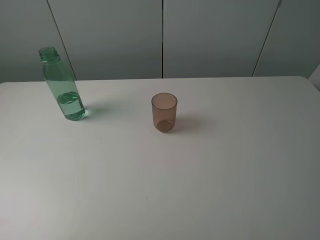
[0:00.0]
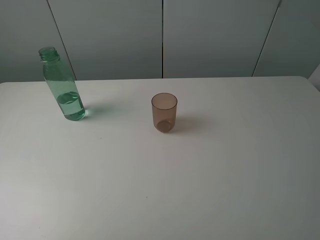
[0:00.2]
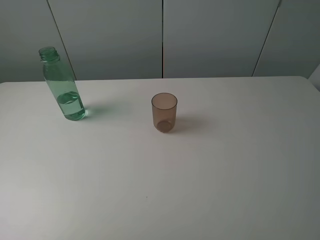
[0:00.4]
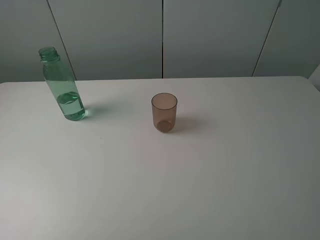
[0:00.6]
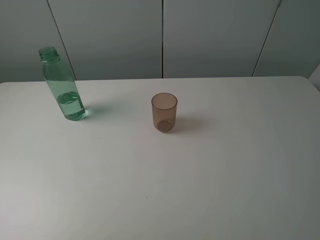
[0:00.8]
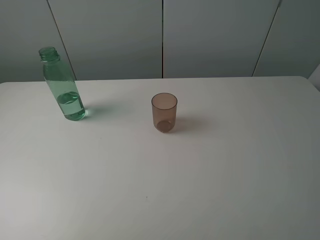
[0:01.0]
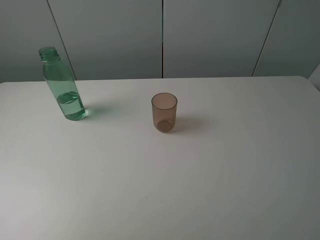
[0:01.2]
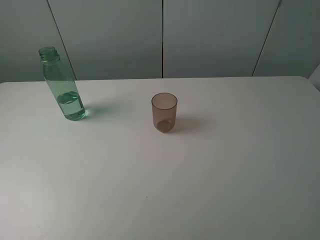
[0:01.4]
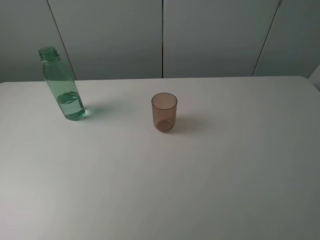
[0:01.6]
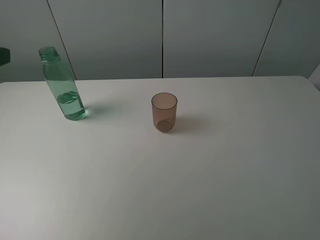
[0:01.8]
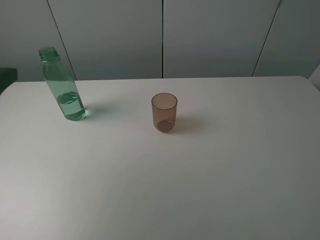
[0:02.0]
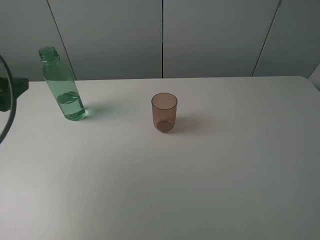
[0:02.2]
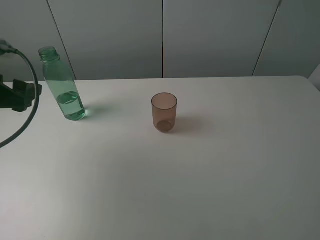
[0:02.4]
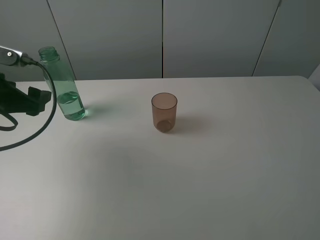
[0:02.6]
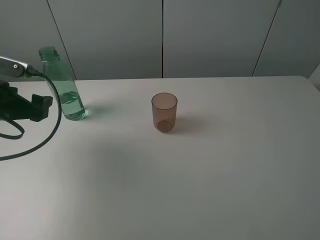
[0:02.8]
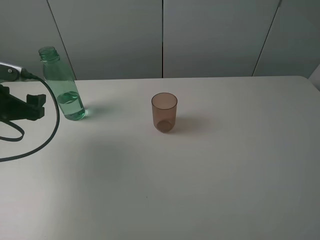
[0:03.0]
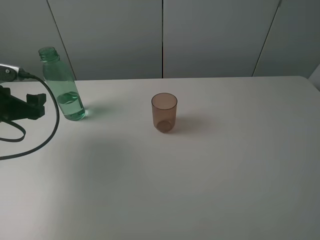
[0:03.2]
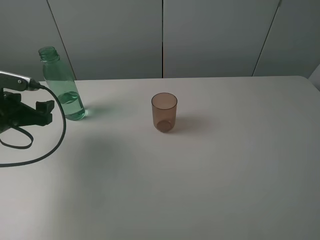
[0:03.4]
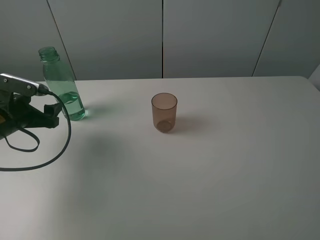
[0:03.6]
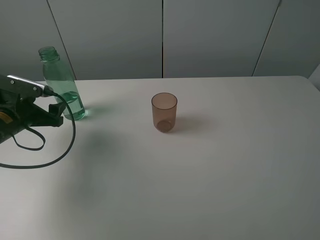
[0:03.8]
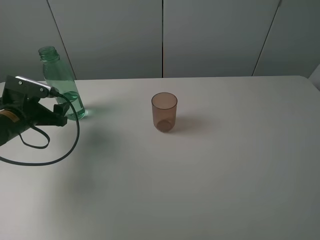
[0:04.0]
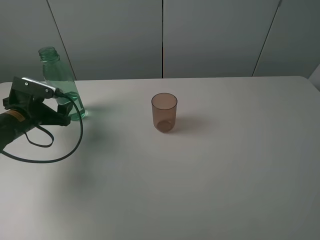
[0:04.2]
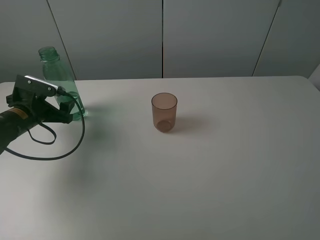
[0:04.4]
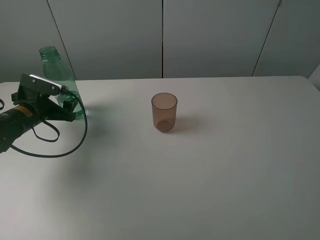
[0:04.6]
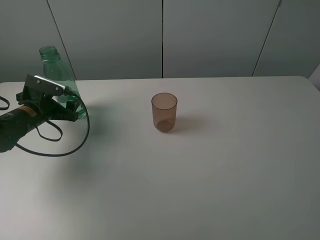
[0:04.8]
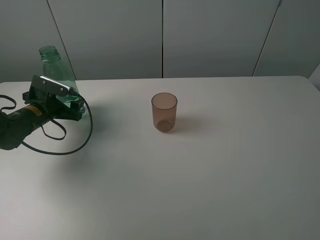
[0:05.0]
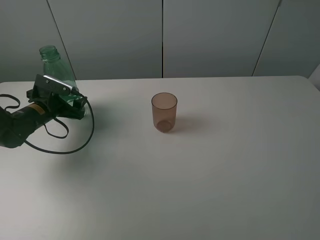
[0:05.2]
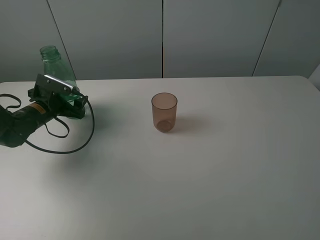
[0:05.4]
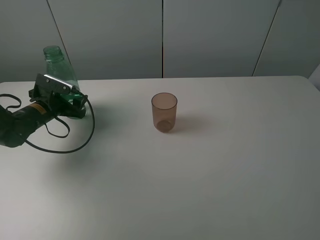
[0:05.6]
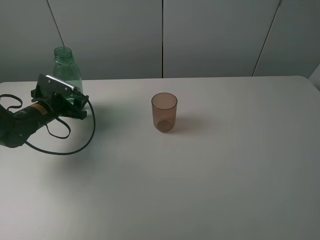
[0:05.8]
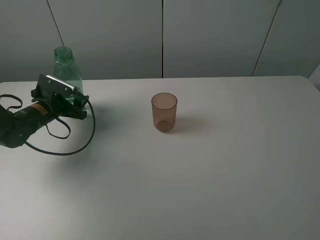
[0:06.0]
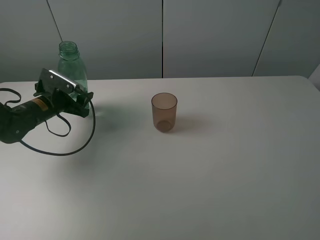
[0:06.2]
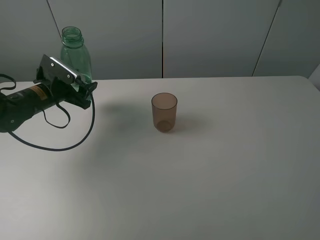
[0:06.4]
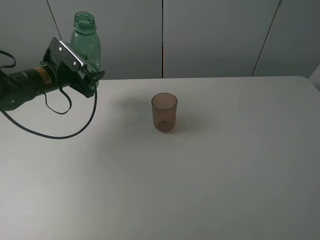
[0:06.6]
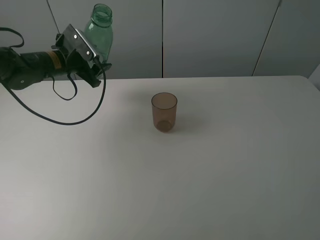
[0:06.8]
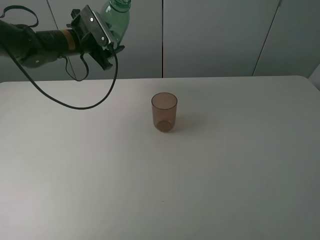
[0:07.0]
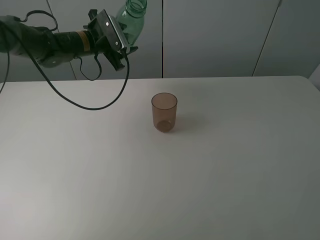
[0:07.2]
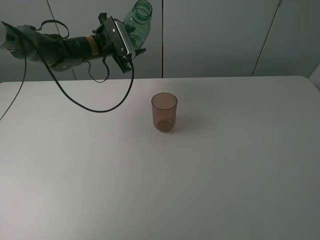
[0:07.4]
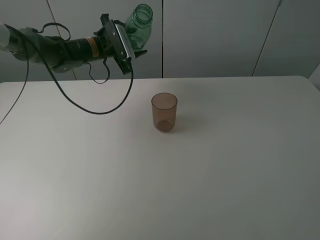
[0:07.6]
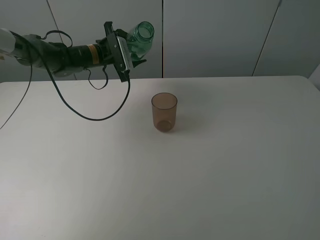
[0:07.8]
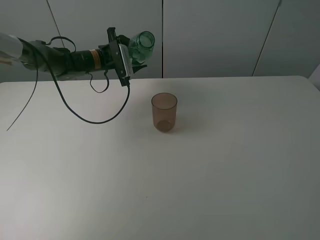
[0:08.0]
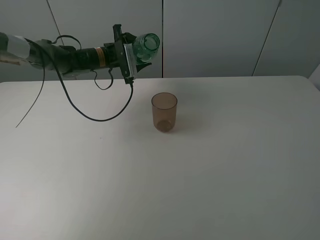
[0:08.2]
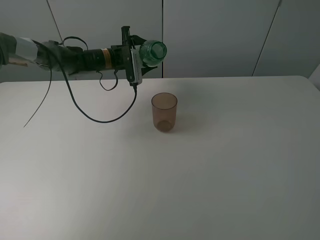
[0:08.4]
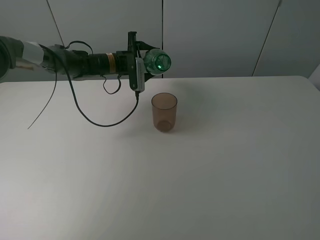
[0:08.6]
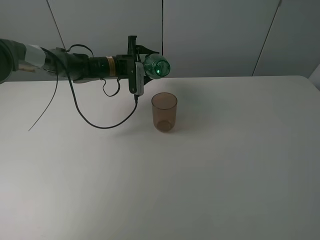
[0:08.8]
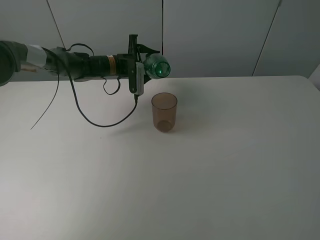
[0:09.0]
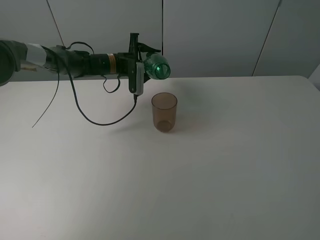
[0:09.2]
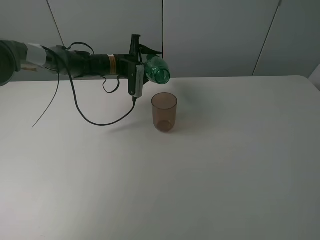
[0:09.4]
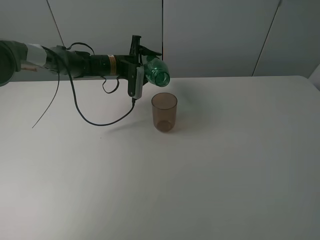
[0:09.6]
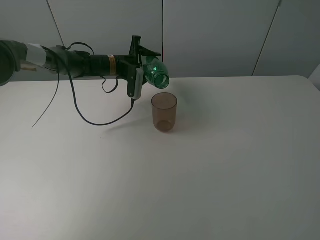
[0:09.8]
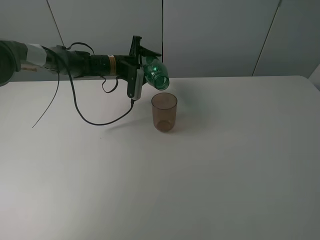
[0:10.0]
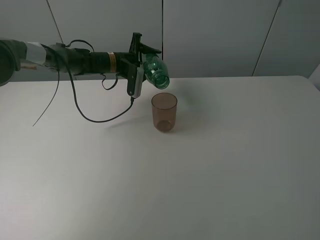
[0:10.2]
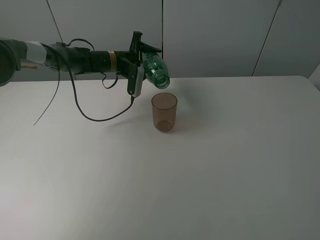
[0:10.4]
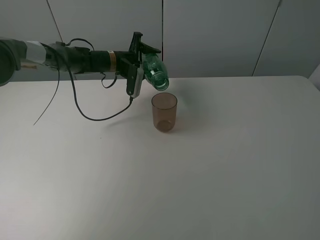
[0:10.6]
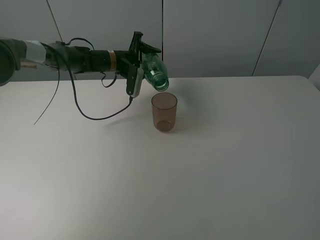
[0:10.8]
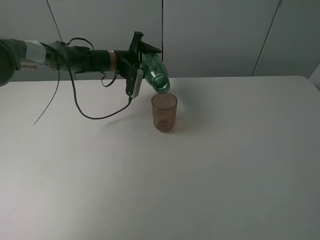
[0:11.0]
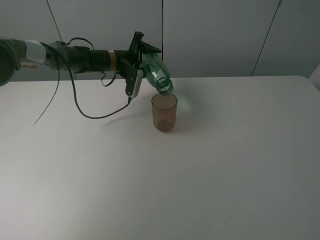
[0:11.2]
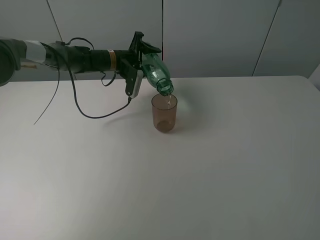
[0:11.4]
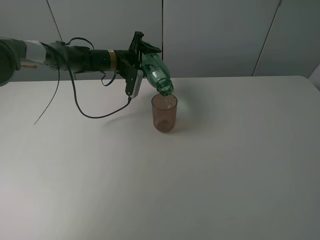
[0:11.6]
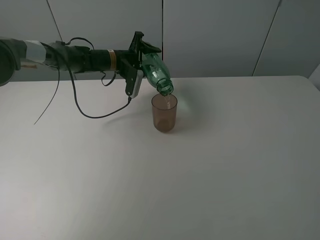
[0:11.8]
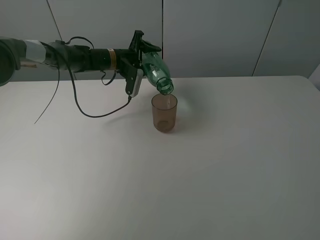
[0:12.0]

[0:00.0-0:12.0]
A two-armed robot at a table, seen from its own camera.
Task of the whole recording: pick up the bottle filled with water and pour it into the pink cup.
Step, 0:00.0 to 0:06.0: Grasp the green bottle with the left gripper.
0:01.6 to 0:03.0: The left gripper heads downward and forward, covering about 20 cm.
0:03.0 to 0:04.4: The left gripper is displaced downward and forward by approximately 10 cm.
0:04.4 to 0:06.0: The left gripper moves roughly 5 cm, and closes its fingers.
0:06.0 to 0:07.6: The left gripper goes roughly 20 cm to the right, forward and upward.
0:07.6 to 0:09.0: The left gripper moves downward, approximately 5 cm.
0:09.0 to 0:10.4: There are only small adjustments of the grippers.
0:10.4 to 0:12.0: There are only small adjustments of the grippers.

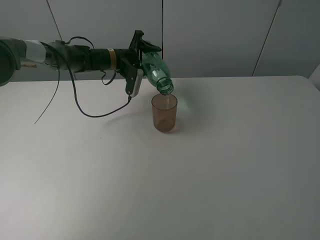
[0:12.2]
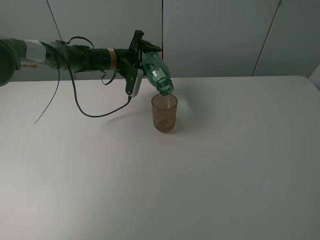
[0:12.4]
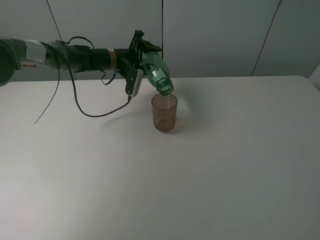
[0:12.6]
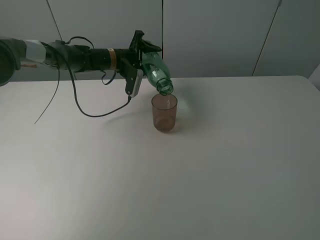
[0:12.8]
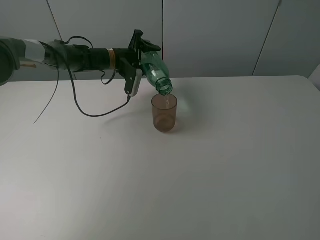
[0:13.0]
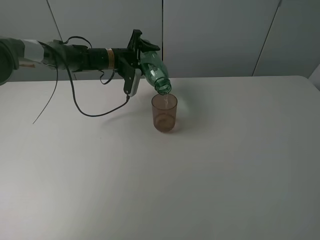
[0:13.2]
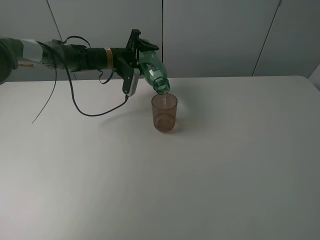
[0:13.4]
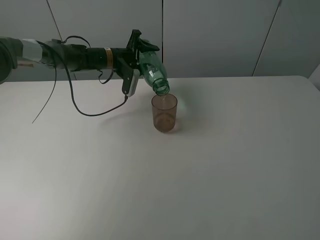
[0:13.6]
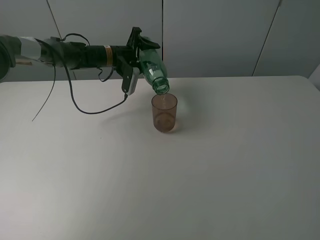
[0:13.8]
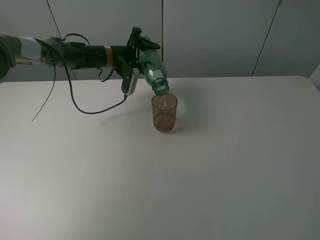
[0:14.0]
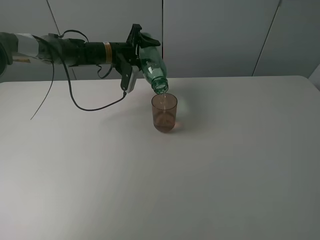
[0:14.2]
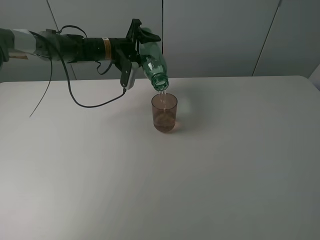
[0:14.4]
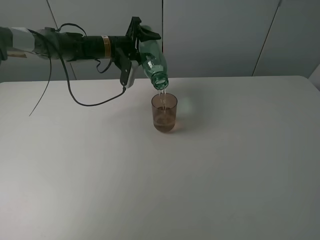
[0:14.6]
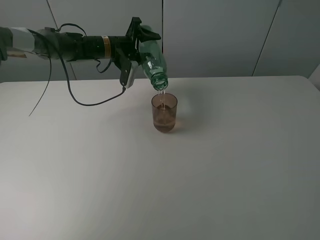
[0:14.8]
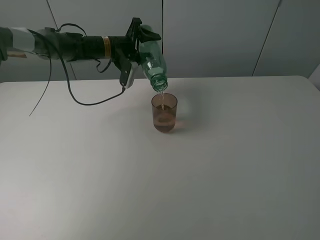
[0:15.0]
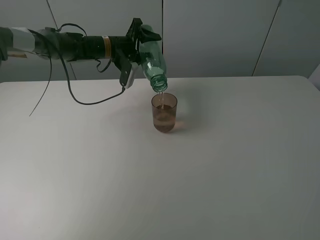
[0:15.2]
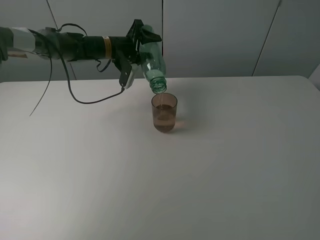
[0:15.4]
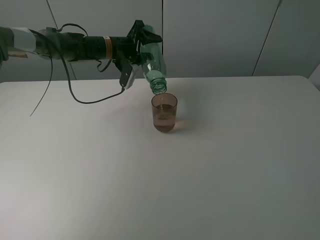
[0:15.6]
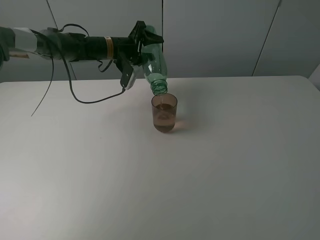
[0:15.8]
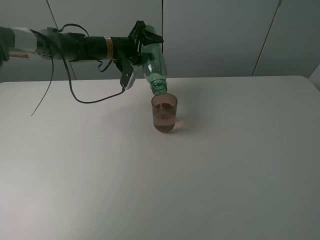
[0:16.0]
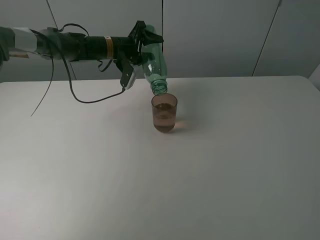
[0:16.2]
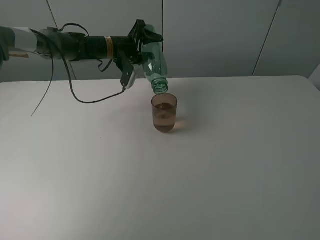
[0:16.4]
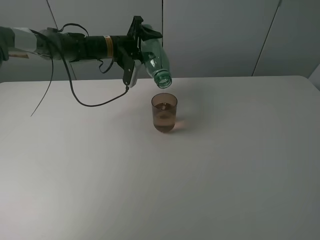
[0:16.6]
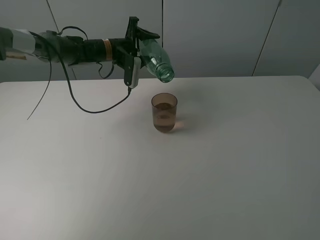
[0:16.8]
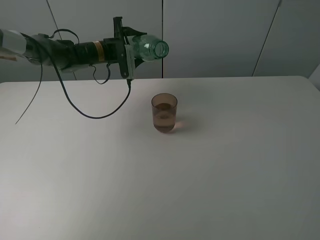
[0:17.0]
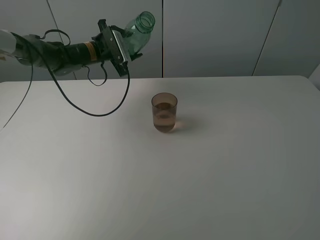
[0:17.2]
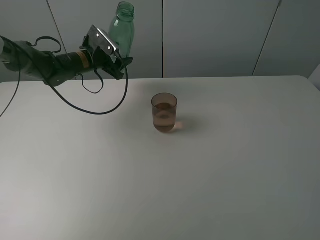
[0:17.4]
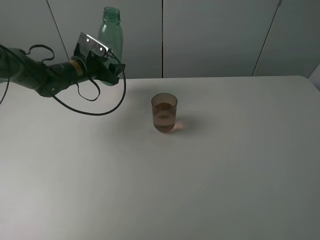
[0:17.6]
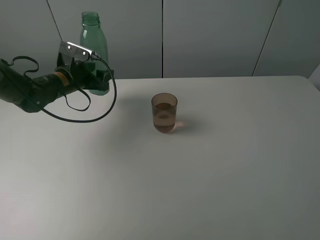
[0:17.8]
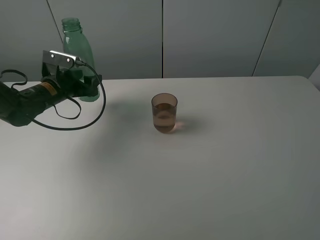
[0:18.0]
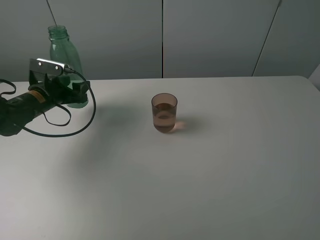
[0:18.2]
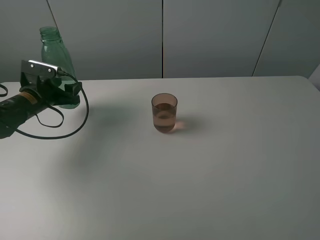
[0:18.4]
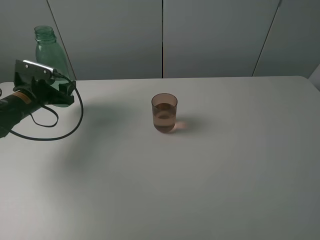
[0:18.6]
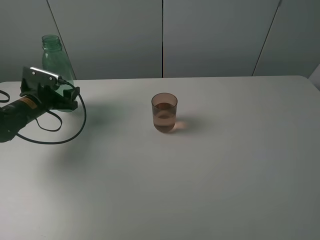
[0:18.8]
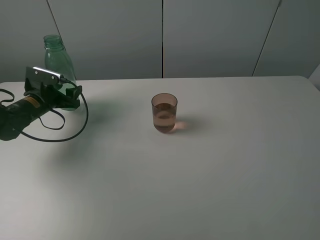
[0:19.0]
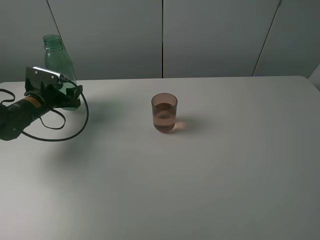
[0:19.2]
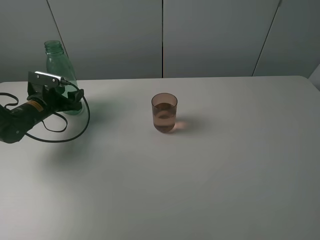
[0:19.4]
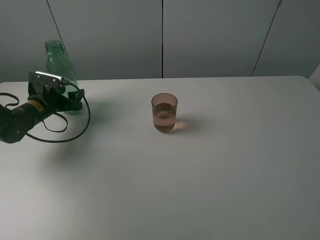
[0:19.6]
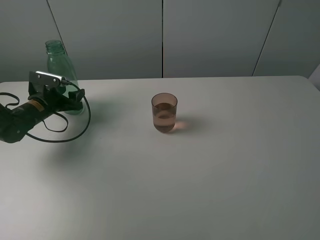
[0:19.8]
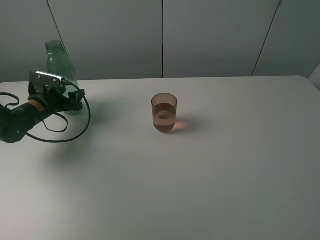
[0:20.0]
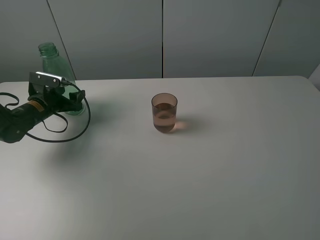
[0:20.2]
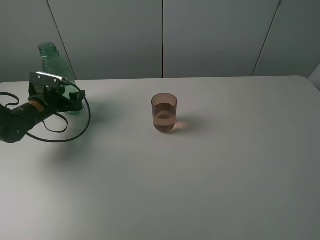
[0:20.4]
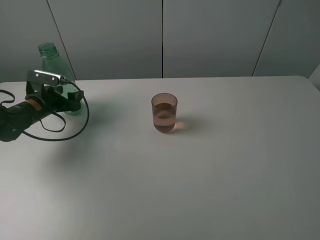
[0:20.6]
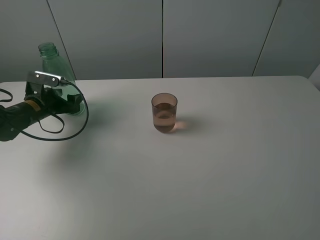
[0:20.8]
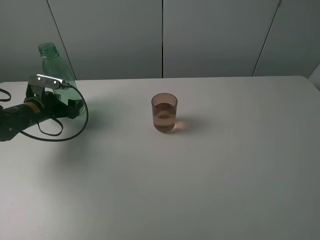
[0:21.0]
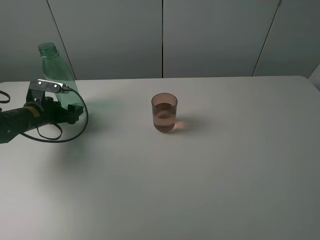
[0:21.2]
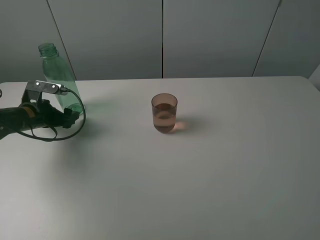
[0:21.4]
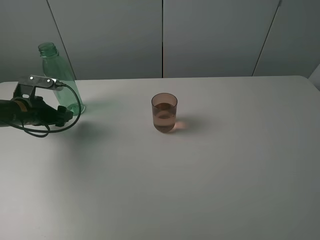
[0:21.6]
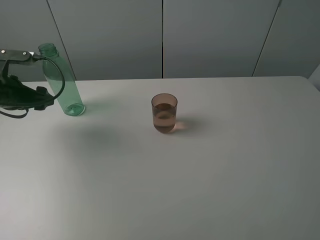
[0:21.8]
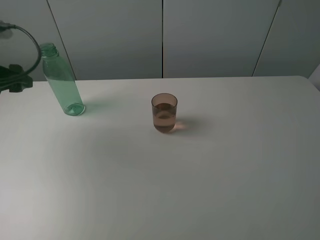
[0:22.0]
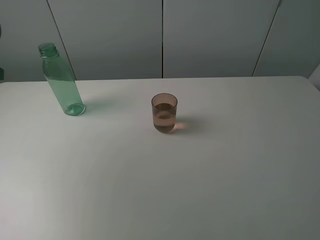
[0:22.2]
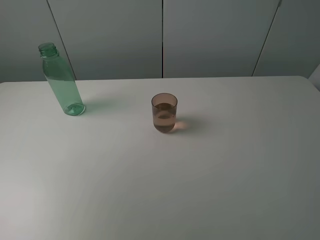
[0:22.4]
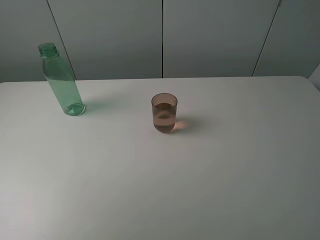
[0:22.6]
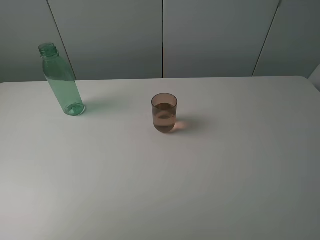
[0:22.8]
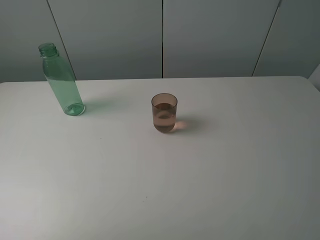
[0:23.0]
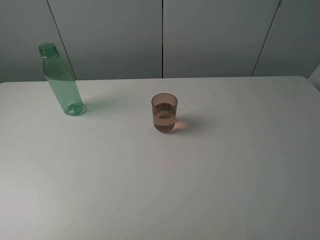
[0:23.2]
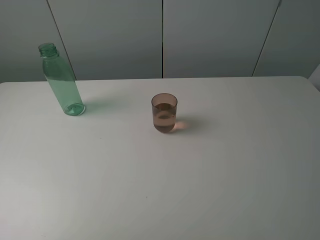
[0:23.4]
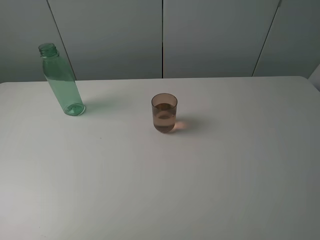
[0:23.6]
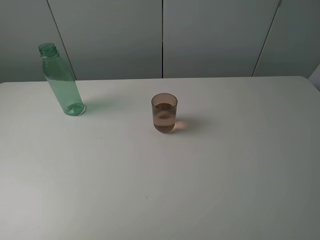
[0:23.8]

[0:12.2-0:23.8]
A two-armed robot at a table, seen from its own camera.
Task of the whole recording: pick up the bottle filled with water and pour it into the pink cup.
Step, 0:12.2 to 0:16.8: Pour water from green bottle to pink cup with the left gripper.
Step, 0:17.0 to 0:21.4: Place the green bottle with the left gripper.
0:12.2 to 0:13.6: Both grippers stay about where they are.
0:13.6 to 0:16.6: The grippers make only small movements.
0:16.6 to 0:18.0: The left gripper shifts roughly 20 cm to the left and backward.
0:18.0 to 0:19.4: The left gripper moves to the left and downward, about 5 cm.
0:19.4 to 0:21.0: The left gripper opens up.
0:21.0 to 0:22.4: The left gripper travels upward and backward by approximately 30 cm.
0:22.4 to 0:23.8: The left gripper is displaced backward by some 20 cm.
